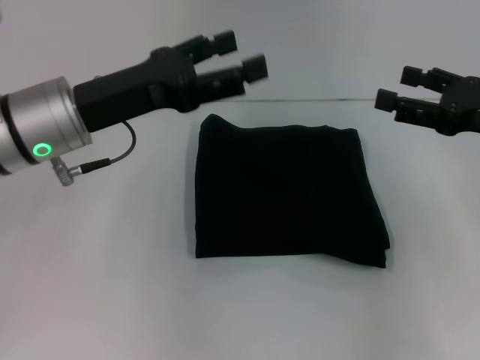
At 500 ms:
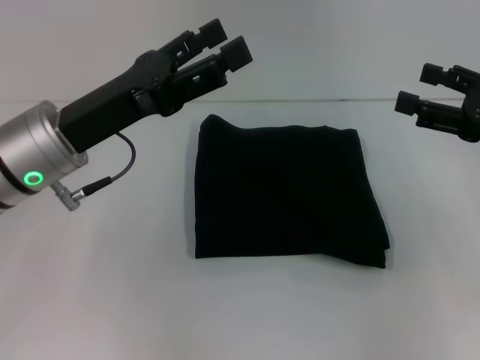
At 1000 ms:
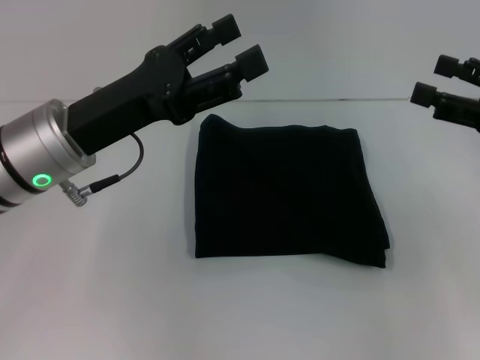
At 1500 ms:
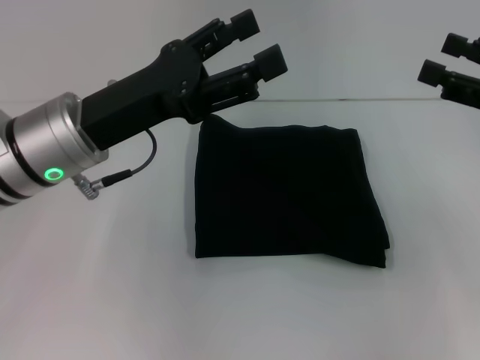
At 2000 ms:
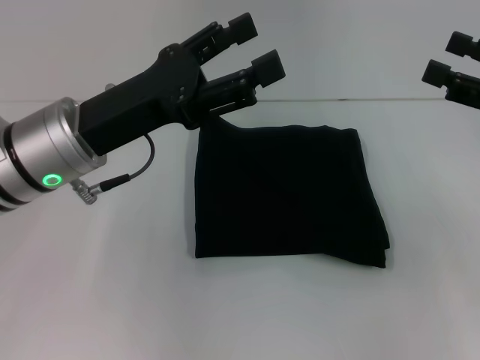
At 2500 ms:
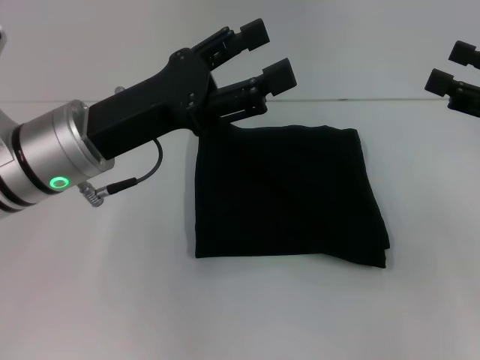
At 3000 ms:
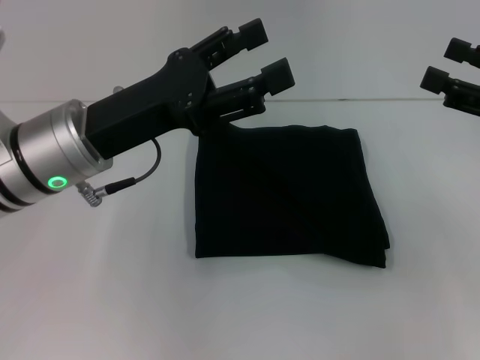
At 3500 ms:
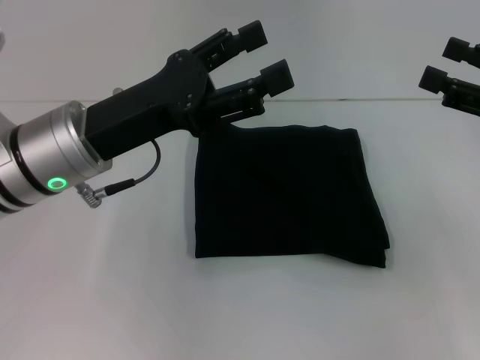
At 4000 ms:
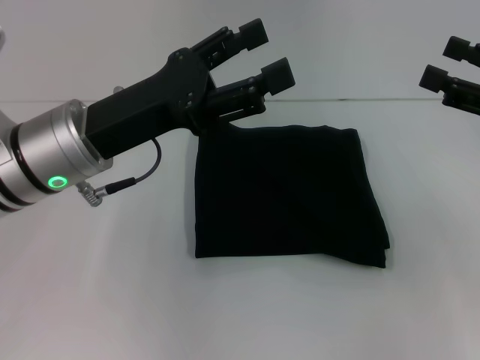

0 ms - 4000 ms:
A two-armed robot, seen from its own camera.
0 ms - 2000 ms: The grippers move only a little.
2000 ms - 4000 ms: The two grippers keep their place.

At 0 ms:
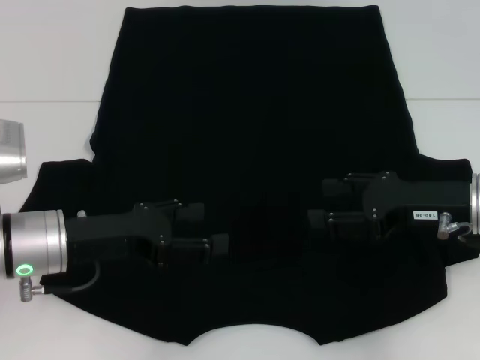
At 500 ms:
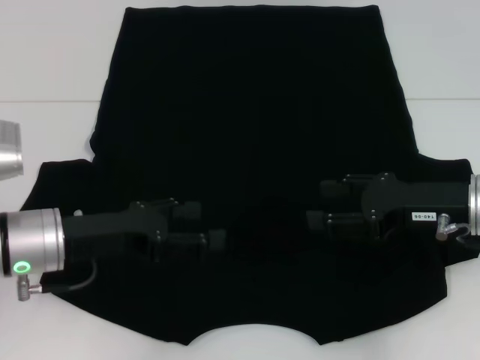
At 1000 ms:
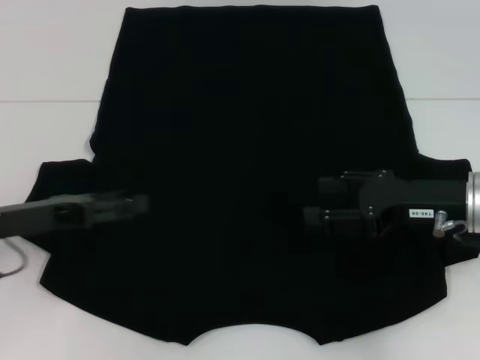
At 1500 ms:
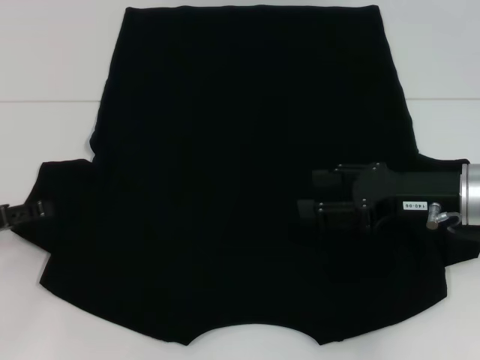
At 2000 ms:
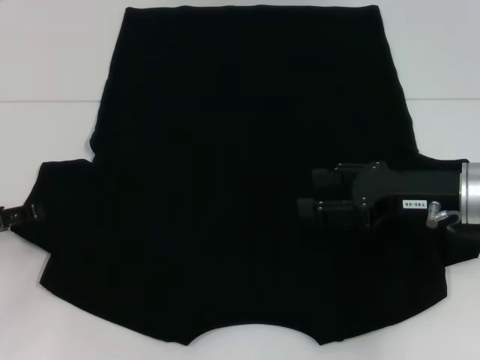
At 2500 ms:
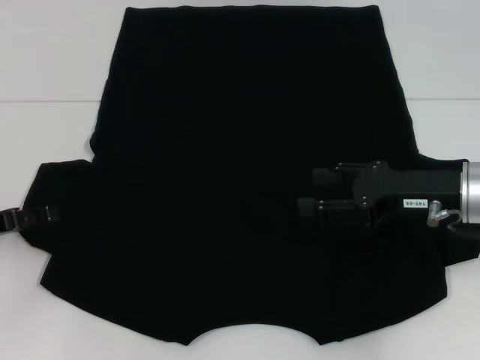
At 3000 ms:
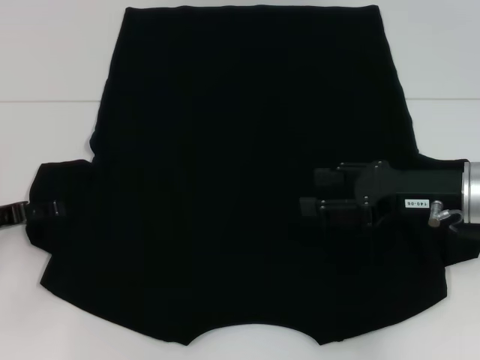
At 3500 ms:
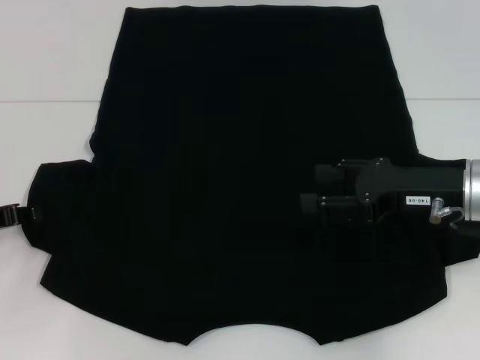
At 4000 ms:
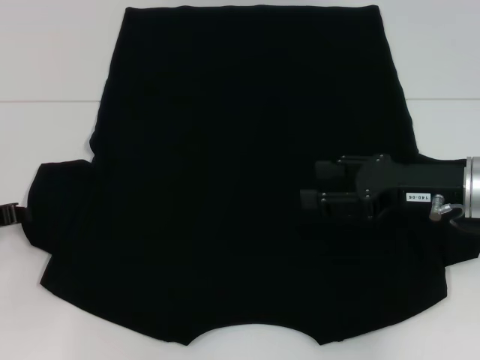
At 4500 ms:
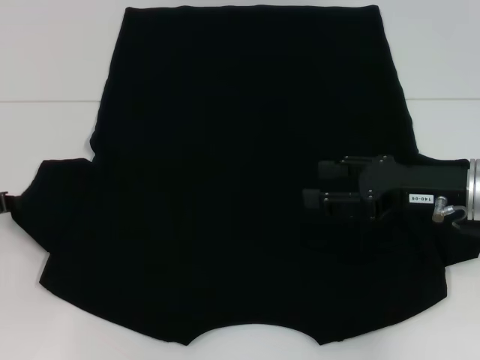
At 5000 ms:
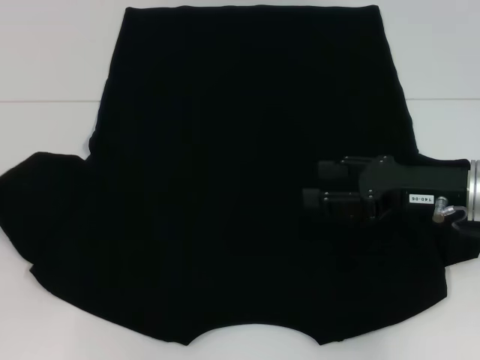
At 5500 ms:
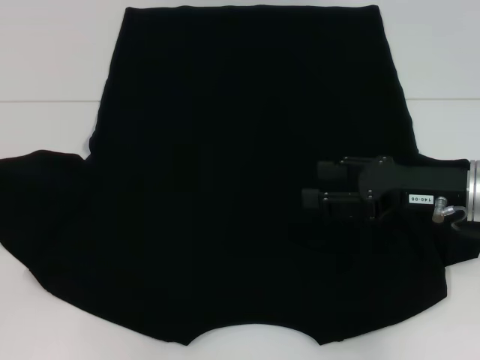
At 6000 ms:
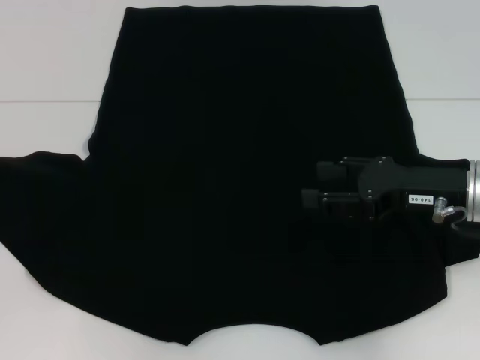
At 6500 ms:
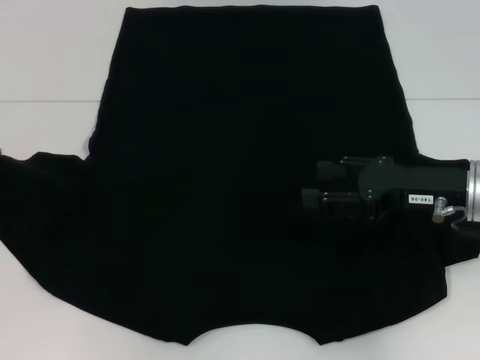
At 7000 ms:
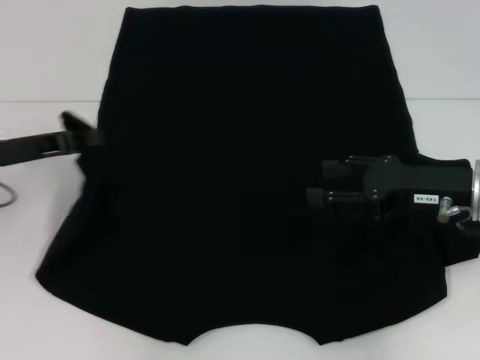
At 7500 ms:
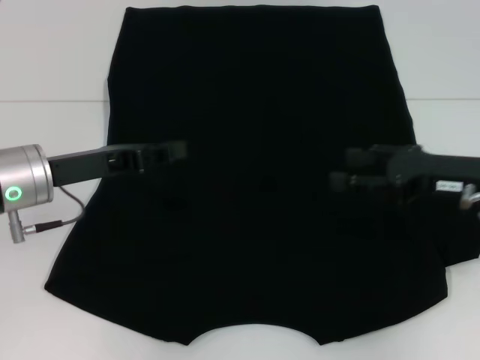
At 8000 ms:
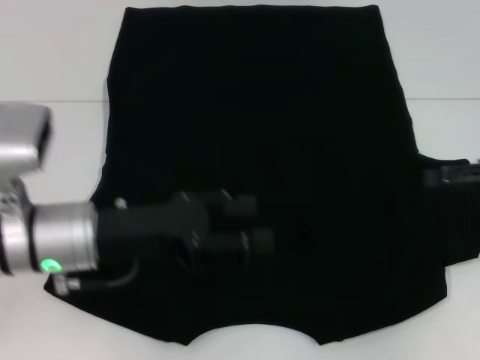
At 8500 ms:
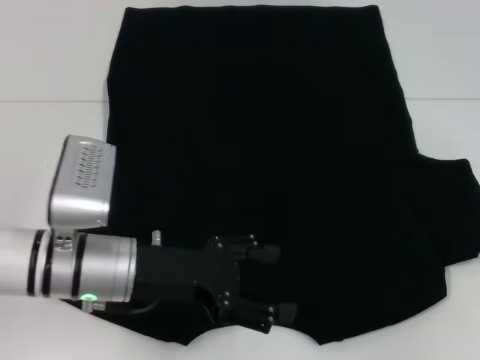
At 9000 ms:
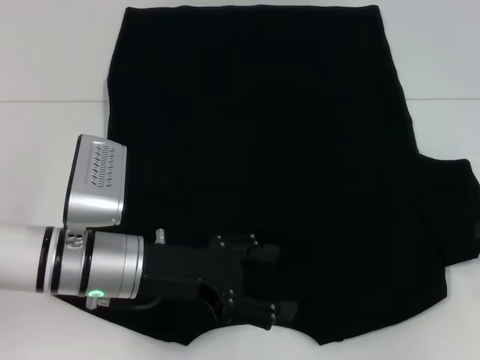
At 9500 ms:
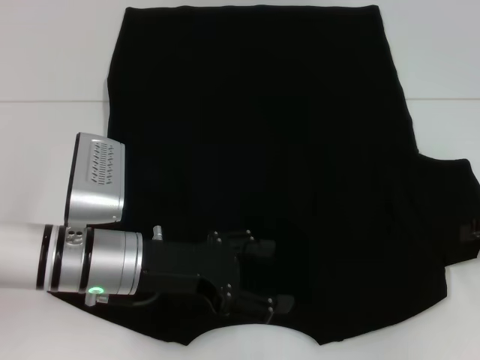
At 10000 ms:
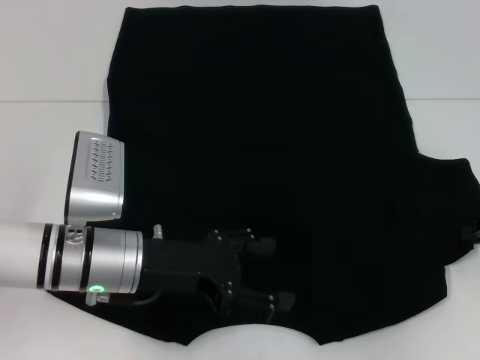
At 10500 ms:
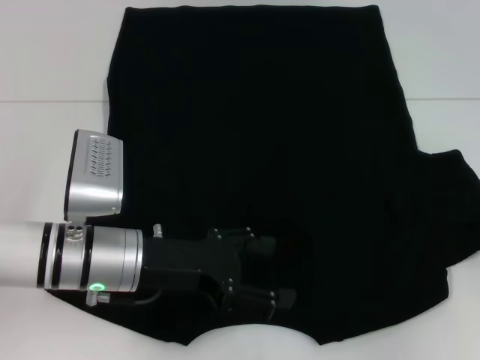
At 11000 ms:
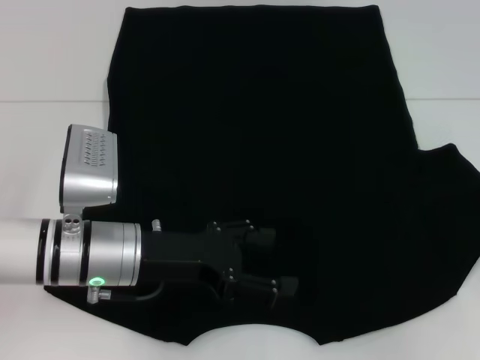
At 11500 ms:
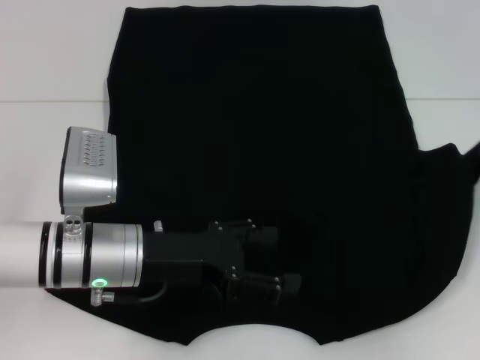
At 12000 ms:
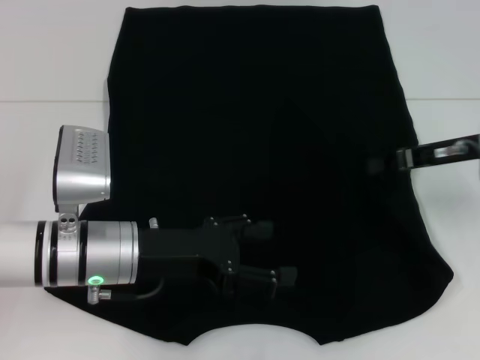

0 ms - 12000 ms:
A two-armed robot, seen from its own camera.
Step, 0 ms - 7000 ms: Fold the bottom left sleeve with your left hand.
0 ms - 2000 ms: The left gripper travels to the left by about 15 cm.
2000 ms - 4000 ms: The left gripper closes.
4000 ms - 6000 ms: The left gripper shifts by about 5 cm.
6000 ms - 8000 ms: The left gripper shifts approximately 20 cm to the right, and opens up. Meanwhile the right gripper moves to the right, about 10 cm.
8000 ms - 10000 ms: The right gripper heads downward, covering some 5 cm, and closes its fingers.
10000 ms - 12000 ms: The right gripper travels to the left and forward by about 10 cm, and closes its fingers.

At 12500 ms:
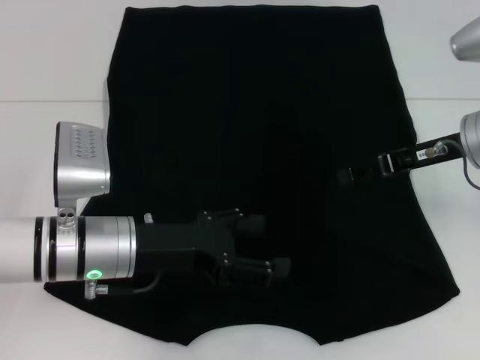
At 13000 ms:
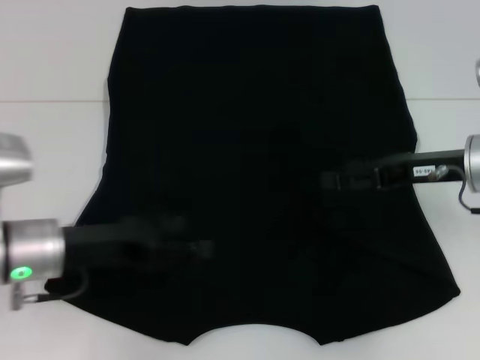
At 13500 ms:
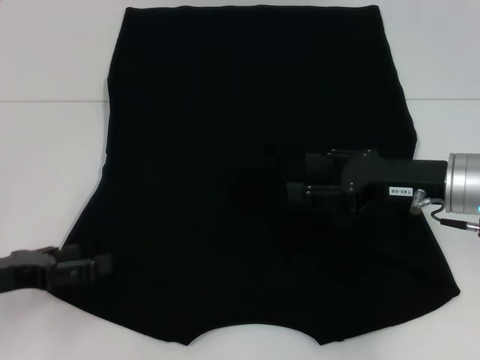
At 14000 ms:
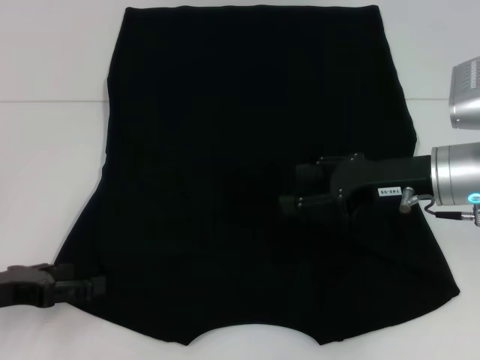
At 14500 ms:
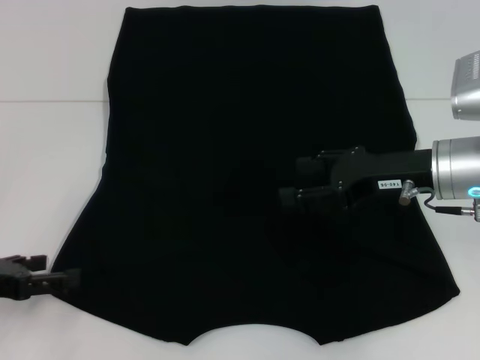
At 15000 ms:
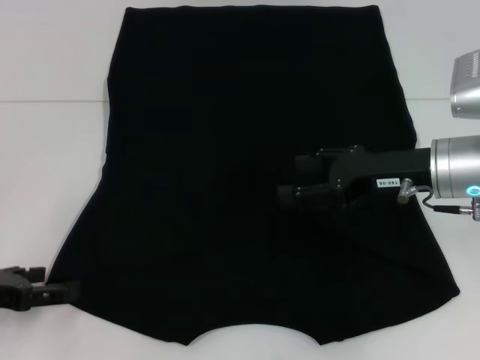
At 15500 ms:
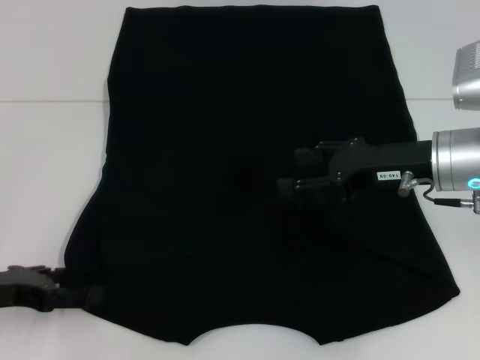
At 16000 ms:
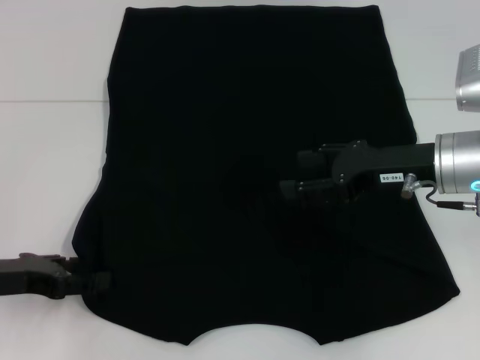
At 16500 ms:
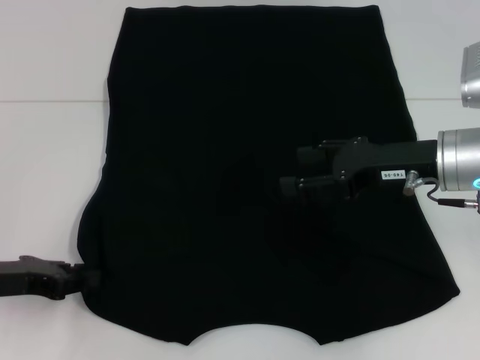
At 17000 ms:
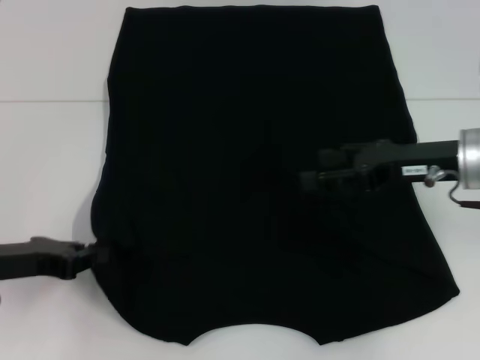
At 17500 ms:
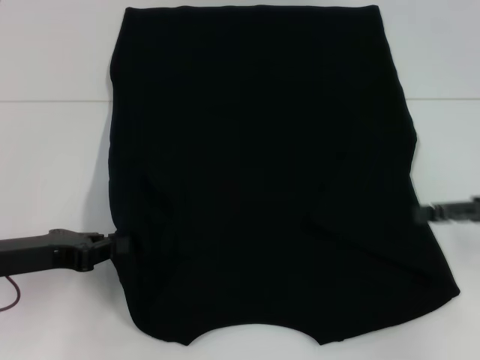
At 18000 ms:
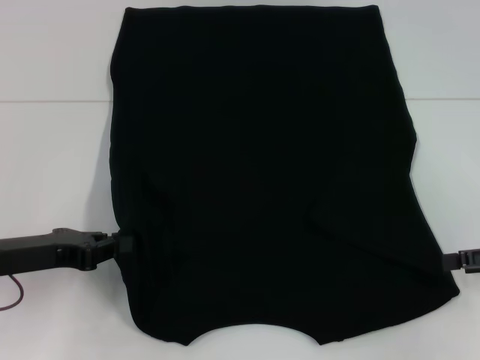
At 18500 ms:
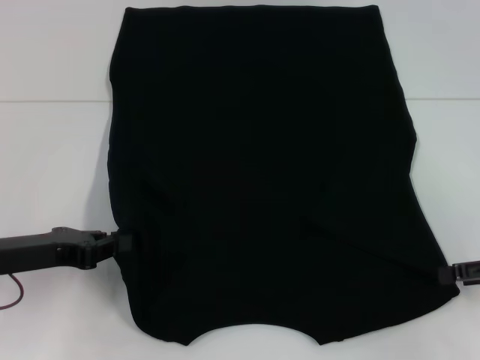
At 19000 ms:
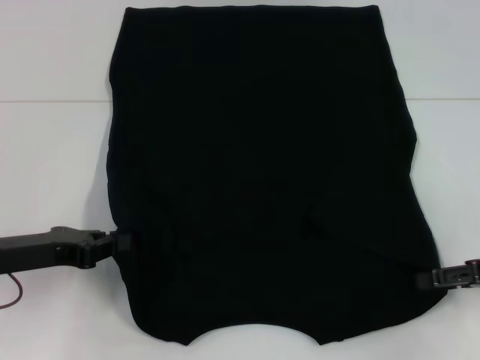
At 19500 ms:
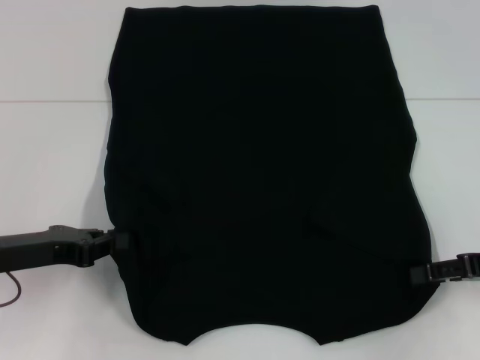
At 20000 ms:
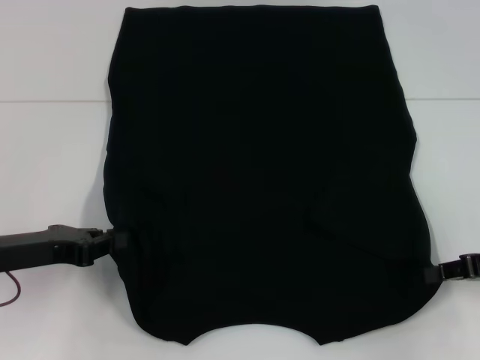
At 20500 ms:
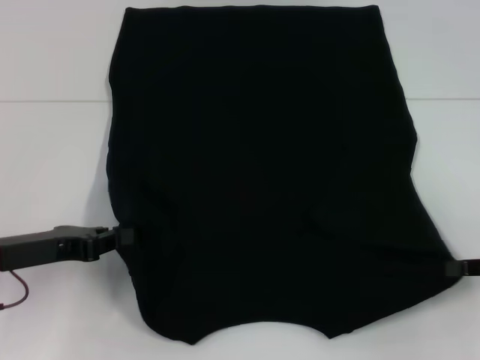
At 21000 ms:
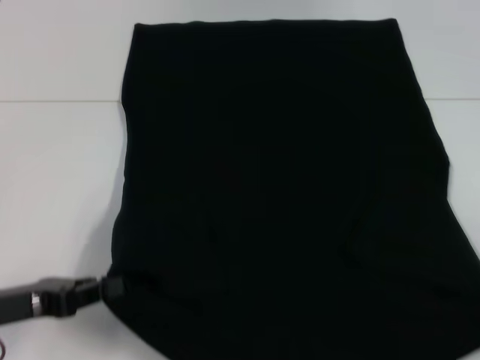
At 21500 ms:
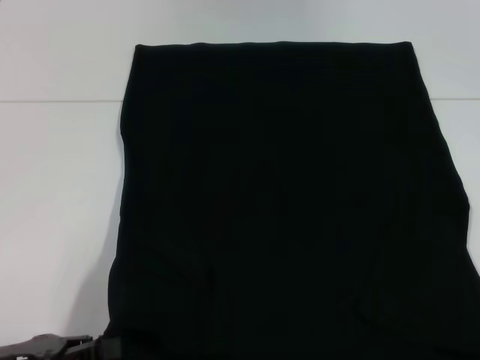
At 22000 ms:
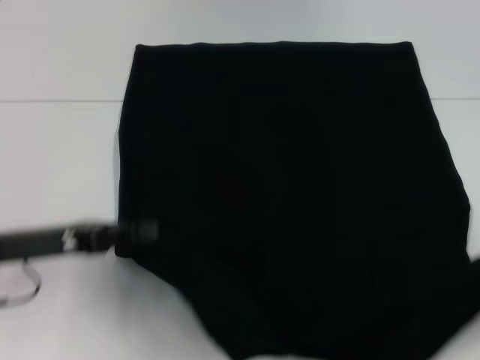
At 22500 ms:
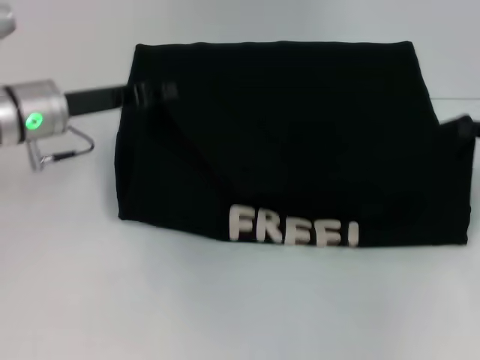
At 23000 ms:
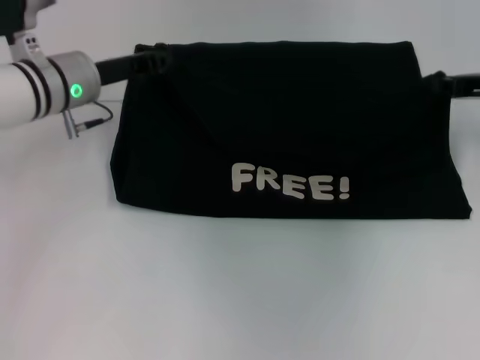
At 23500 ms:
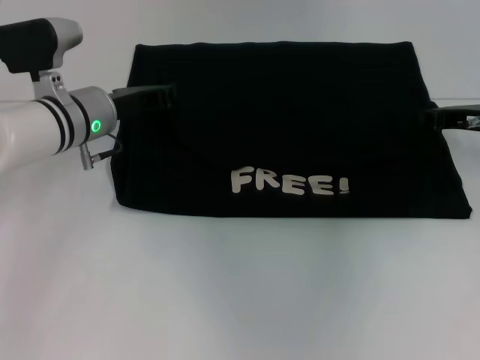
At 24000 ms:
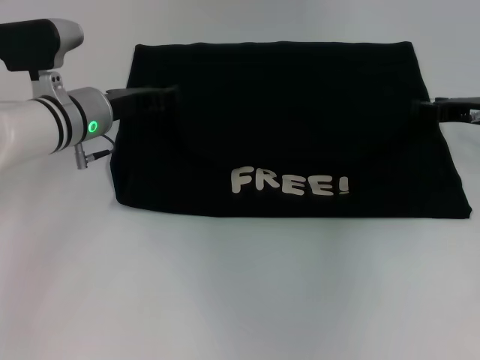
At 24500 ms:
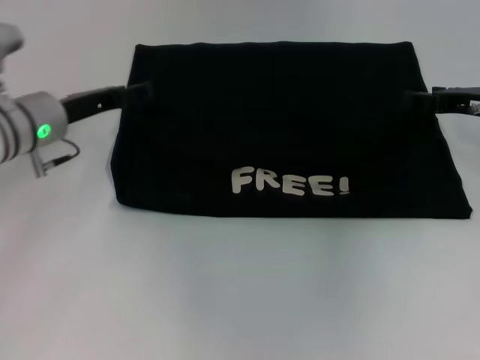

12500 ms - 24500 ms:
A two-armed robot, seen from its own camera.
Step, 12500 ms - 16500 ms: Grab the bottom left corner with your left hand.
Step, 17000 ms - 20000 ms: Grab the bottom right corner with your right hand.
Step, 20500 ms - 24000 ms: Fold the clothes with your left hand.
Step, 20500 ms - 24000 ms: Fold the clothes with your right hand.
12500 ms - 14500 ms: The right gripper opens its fingers. Meanwhile the left gripper heads to the left, covering approximately 20 cm.
14500 ms - 16500 ms: The left gripper closes.
16500 ms - 18500 ms: The right gripper travels to the right and backward by about 15 cm. Meanwhile the left gripper closes.
18500 ms - 20500 ms: The right gripper closes up.
20500 ms - 22500 ms: The right gripper goes some 10 cm forward and upward; the left gripper is displaced forward, upward and to the right by some 15 cm.
22500 ms - 24500 ms: The right gripper goes some 5 cm to the left, and opens up; the left gripper opens up.
